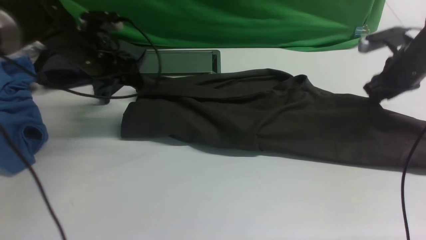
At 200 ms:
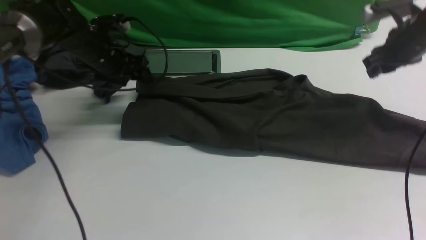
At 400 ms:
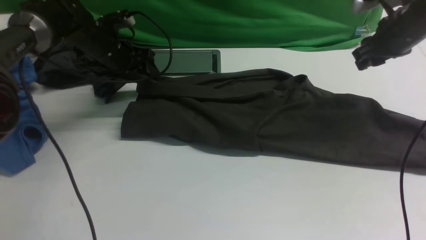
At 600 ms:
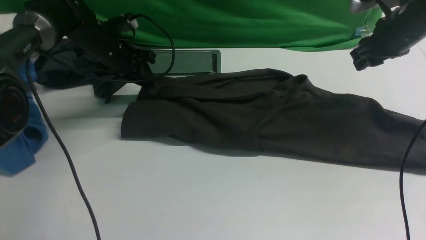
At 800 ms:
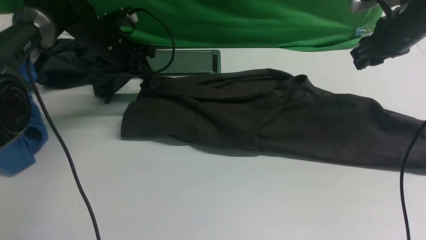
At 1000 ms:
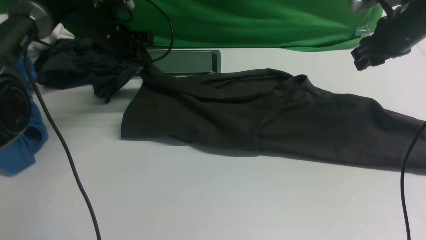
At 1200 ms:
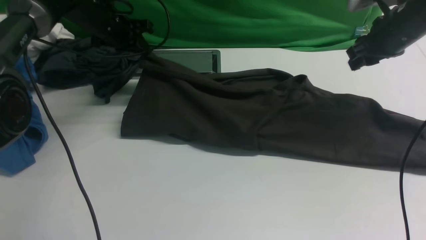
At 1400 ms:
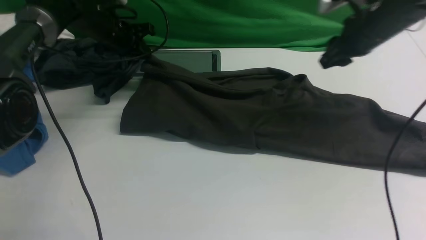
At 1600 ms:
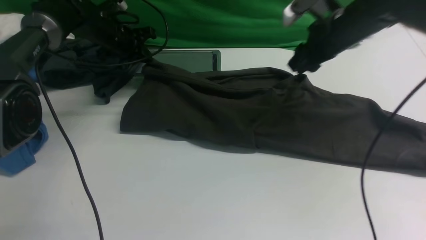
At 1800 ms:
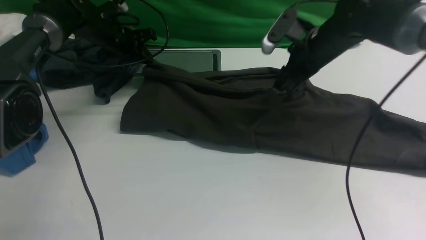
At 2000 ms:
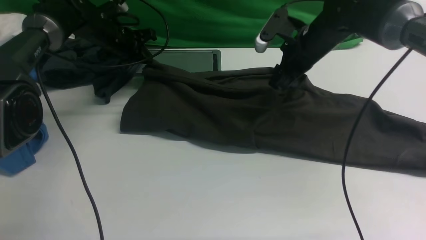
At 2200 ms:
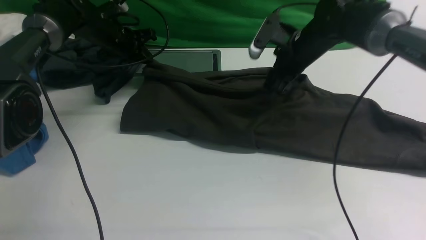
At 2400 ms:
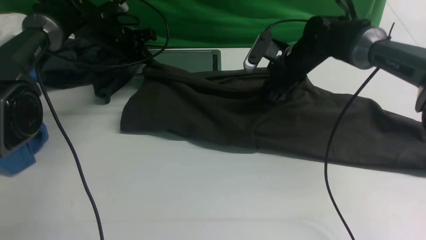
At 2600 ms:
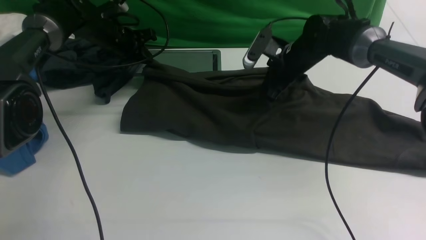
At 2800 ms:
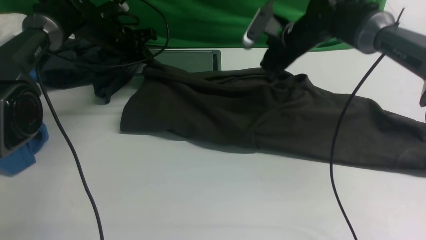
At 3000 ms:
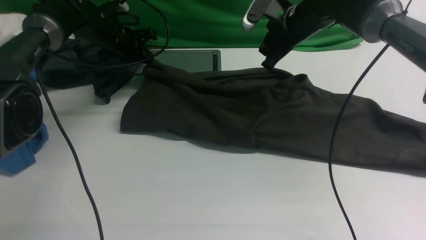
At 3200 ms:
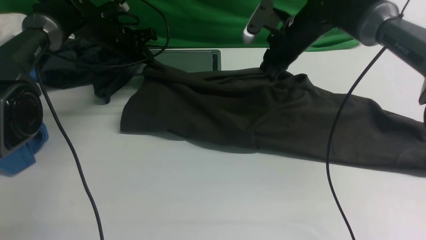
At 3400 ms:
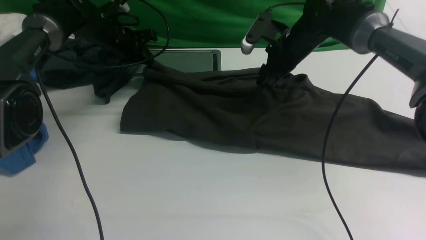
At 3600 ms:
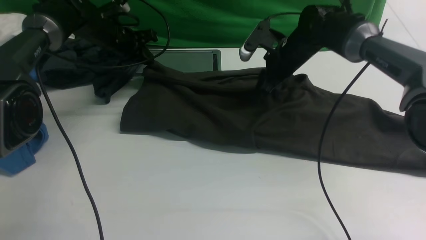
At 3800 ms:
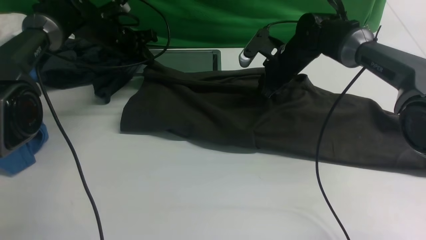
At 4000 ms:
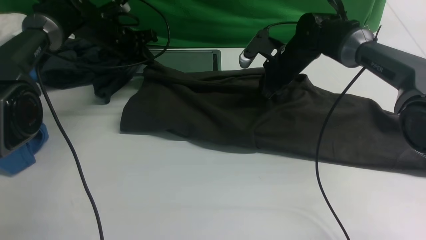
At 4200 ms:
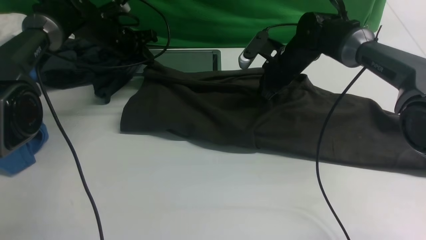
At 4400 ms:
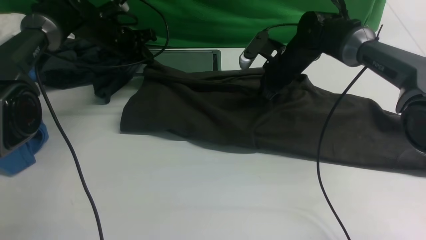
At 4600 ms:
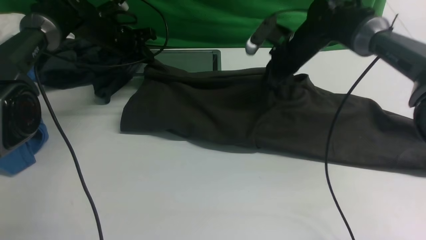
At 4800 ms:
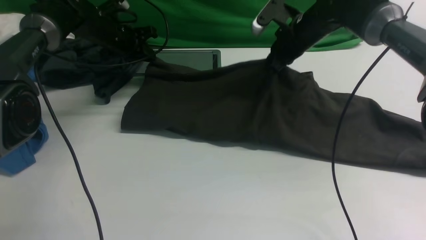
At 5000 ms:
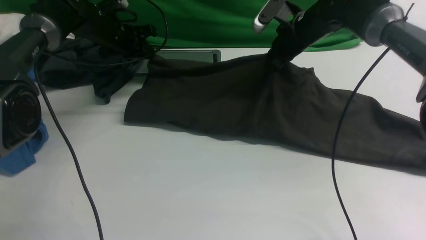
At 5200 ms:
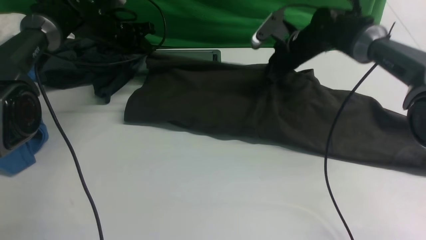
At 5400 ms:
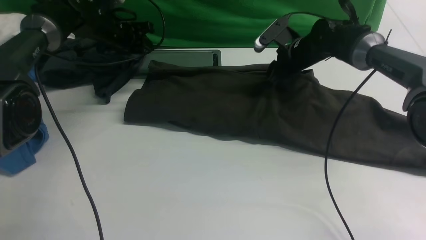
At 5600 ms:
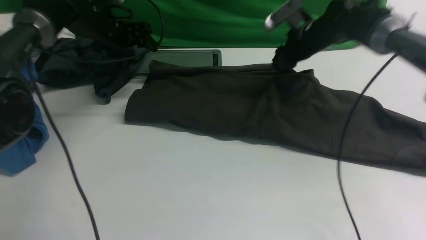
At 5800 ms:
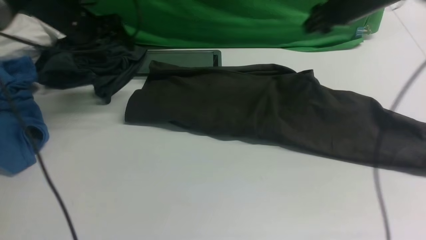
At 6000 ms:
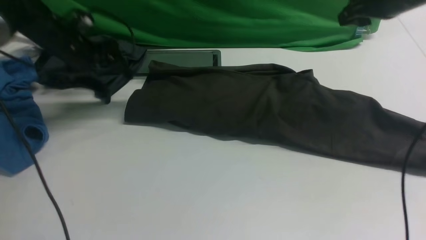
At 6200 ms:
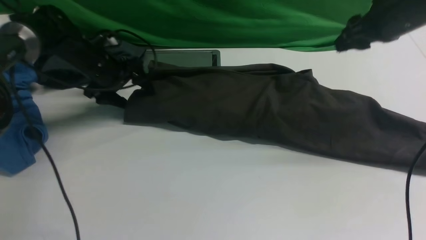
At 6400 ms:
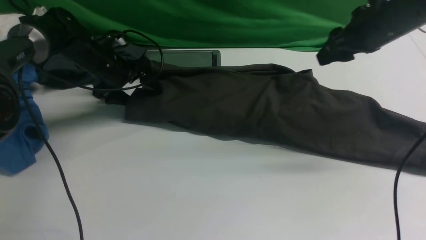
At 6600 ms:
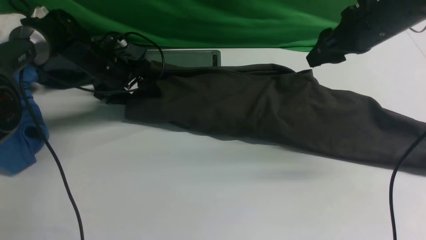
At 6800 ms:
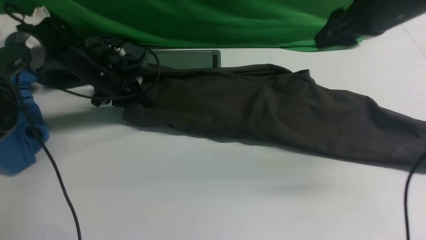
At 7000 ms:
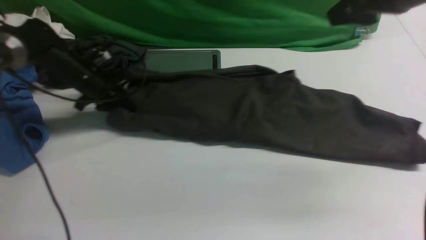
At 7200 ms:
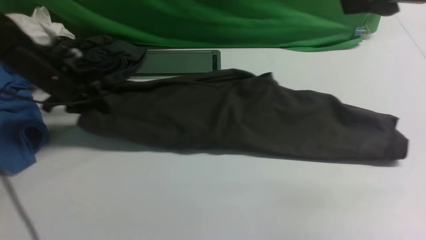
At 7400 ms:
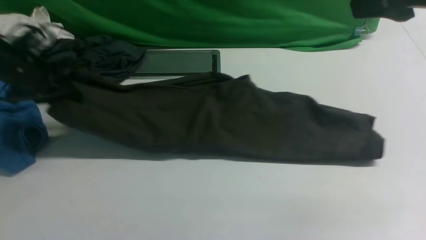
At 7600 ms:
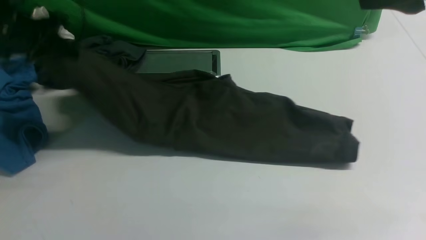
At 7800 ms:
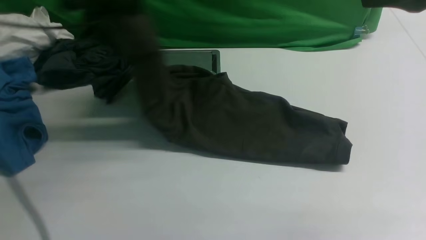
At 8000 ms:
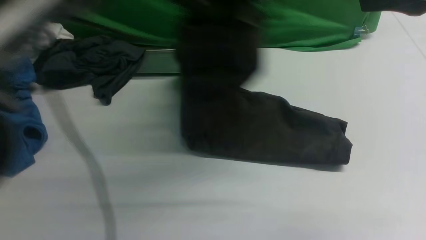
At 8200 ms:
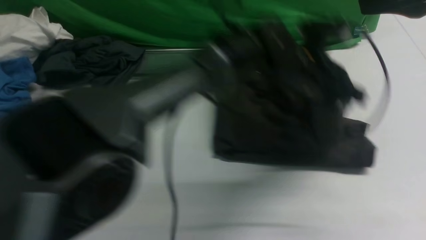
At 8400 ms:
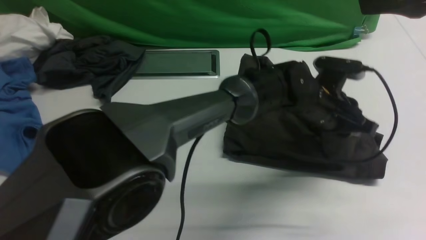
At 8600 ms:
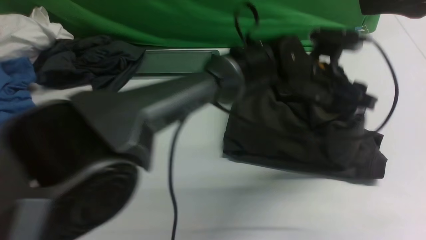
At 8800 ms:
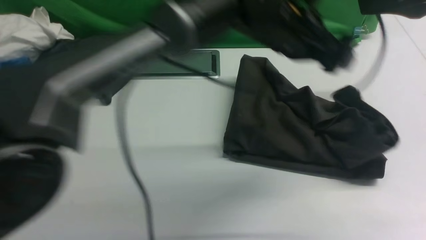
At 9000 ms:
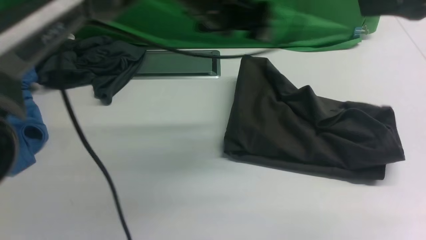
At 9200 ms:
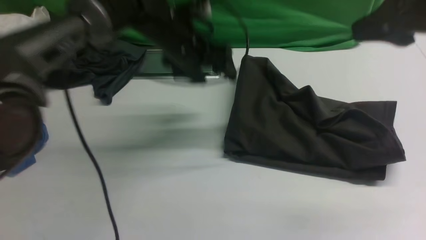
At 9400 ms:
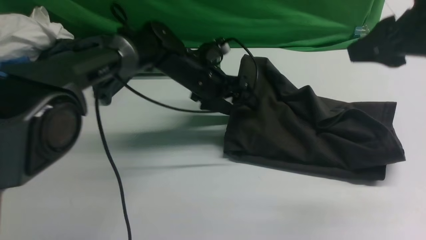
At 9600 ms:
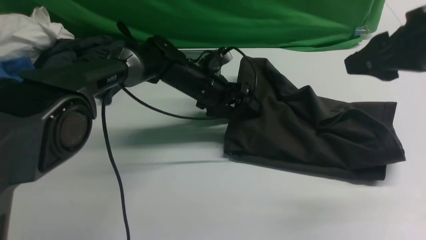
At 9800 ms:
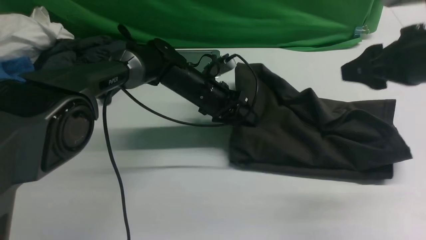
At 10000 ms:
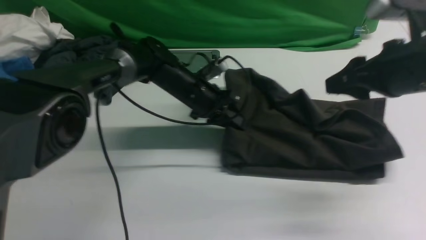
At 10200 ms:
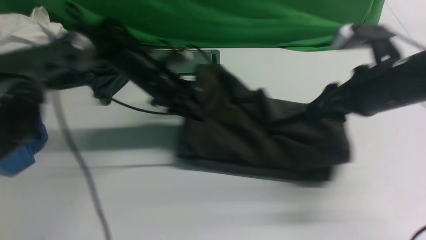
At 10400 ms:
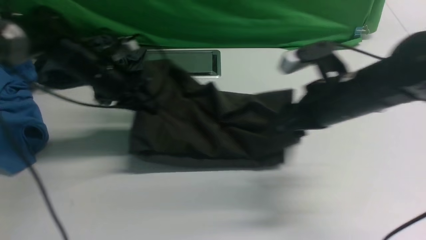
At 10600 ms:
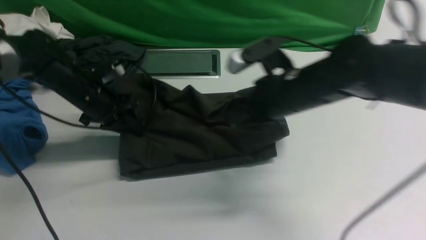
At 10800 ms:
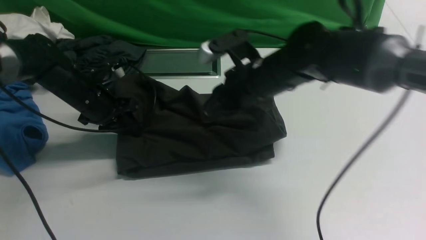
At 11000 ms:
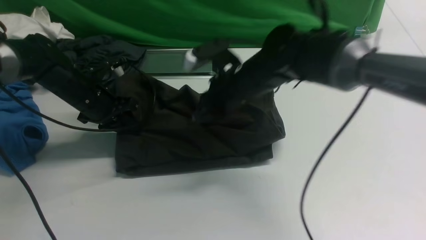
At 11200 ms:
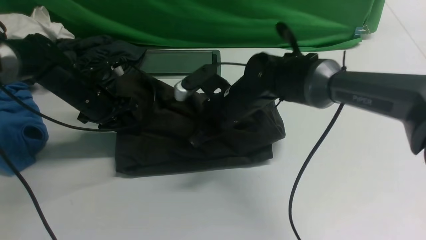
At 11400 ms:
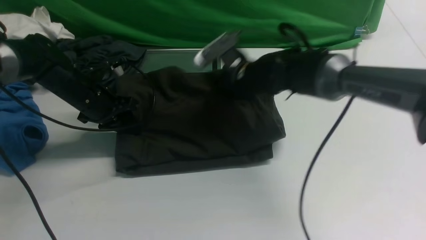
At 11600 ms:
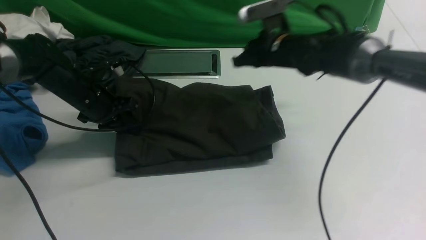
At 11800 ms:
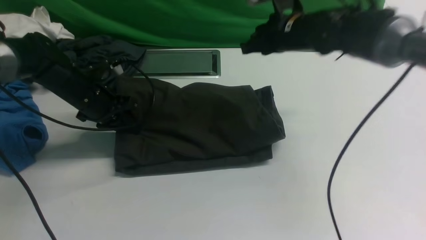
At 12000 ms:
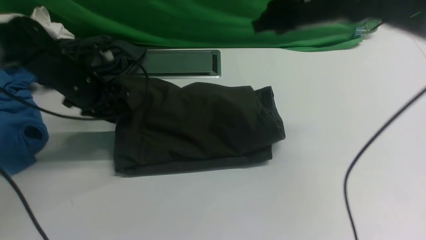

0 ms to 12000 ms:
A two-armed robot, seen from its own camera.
Step, 0 ms to 5600 ms: use both arms to drag the lower edge of the fabric forward and fold it over the upper edge.
Step, 5800 ms to 7200 ms: Hold the left edge of the fabric with your left arm.
Step, 7400 ms to 8600 ms: Drag the left edge of the fabric to the left with your left arm and fold it to the right edge.
0 ms to 1600 ms: The right gripper shifts some 15 cm to the left, while the left gripper goes approximately 10 cm forward, and closes its fingers.
1600 ms to 3000 ms: The right gripper moves to the left and forward, roughly 5 cm, and closes.
3000 ms to 4400 ms: The right gripper goes approximately 5 cm downward, and opens, then closes again.
4400 ms to 6000 ms: The left gripper shifts by some 5 cm, and opens up, while the right gripper moves upward, to the right and backward, approximately 20 cm, and opens up.
6000 ms to 7600 ms: The left gripper moves upward and backward, roughly 15 cm, and closes; the right gripper travels backward and upward by roughly 20 cm.
7600 ms to 9000 ms: The left gripper shifts approximately 25 cm to the right, and opens its fingers.
9000 ms to 10400 ms: The left gripper heads to the left and downward, covering roughly 20 cm, and closes up. Meanwhile the right gripper is displaced downward and to the left by about 20 cm.
10400 ms to 12000 ms: The left gripper moves approximately 5 cm, and opens. Meanwhile the right gripper goes approximately 15 cm forward and upward, and closes its fingers.

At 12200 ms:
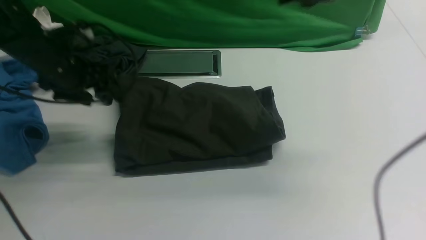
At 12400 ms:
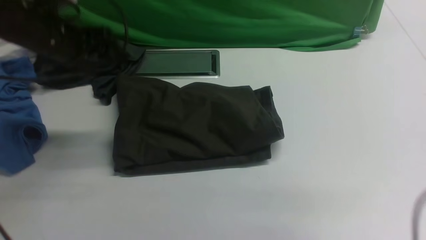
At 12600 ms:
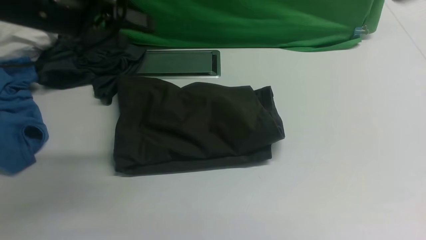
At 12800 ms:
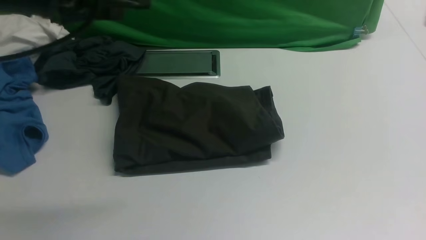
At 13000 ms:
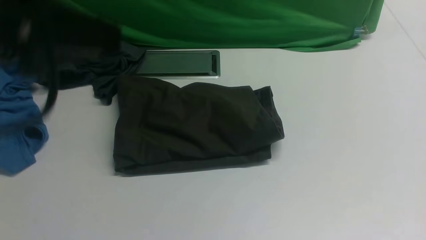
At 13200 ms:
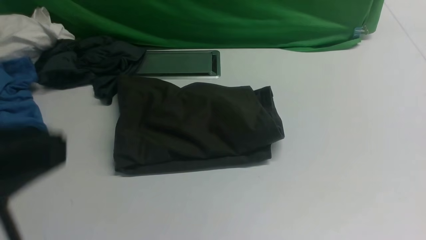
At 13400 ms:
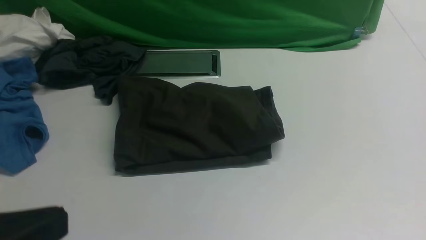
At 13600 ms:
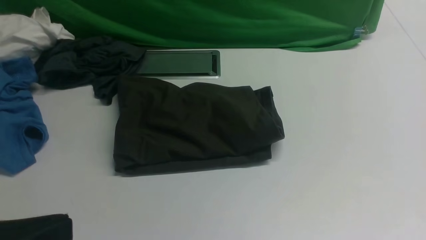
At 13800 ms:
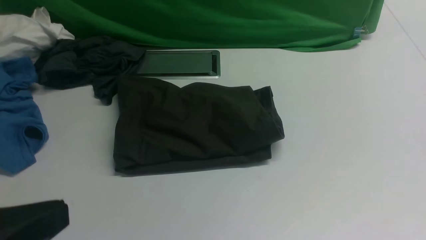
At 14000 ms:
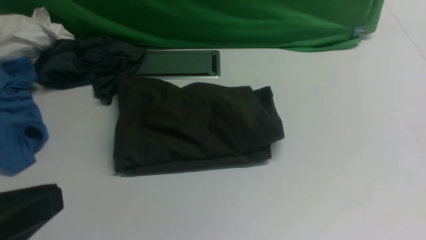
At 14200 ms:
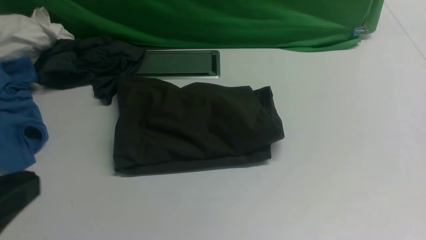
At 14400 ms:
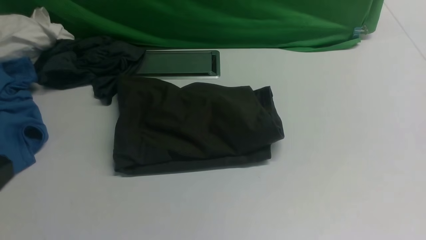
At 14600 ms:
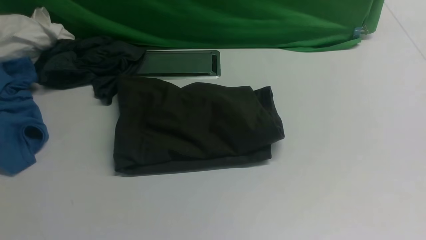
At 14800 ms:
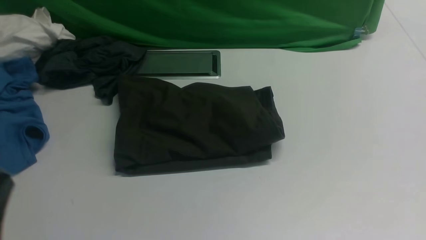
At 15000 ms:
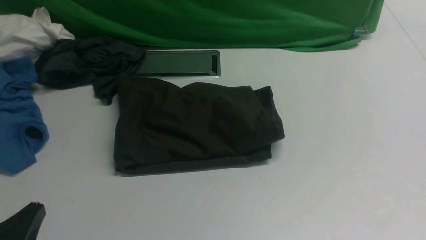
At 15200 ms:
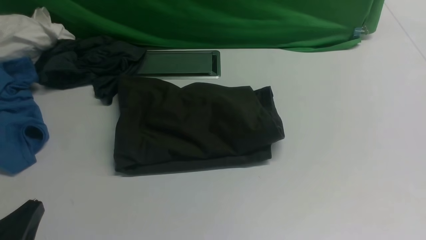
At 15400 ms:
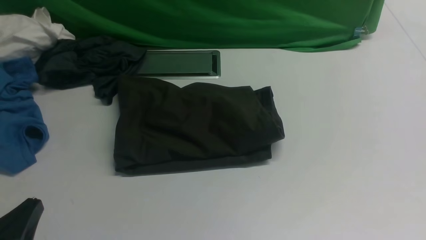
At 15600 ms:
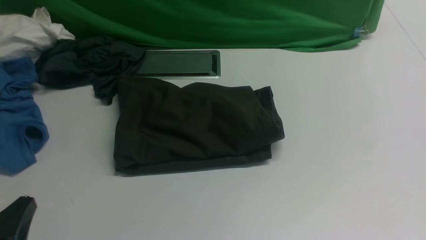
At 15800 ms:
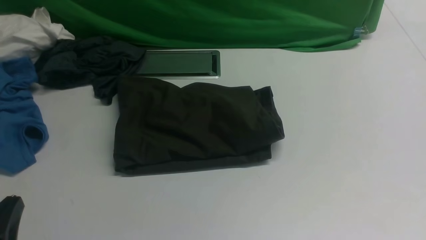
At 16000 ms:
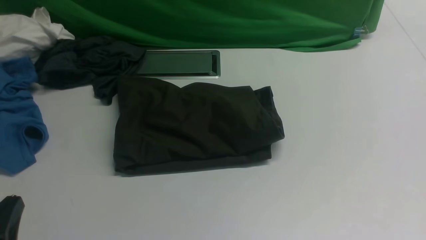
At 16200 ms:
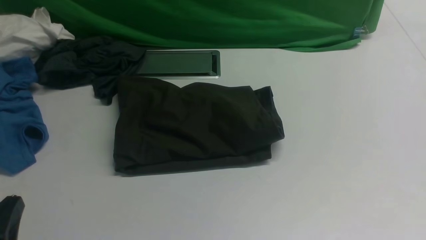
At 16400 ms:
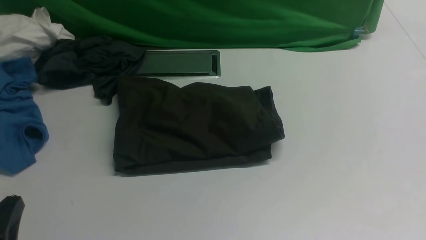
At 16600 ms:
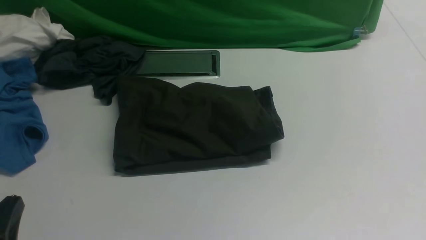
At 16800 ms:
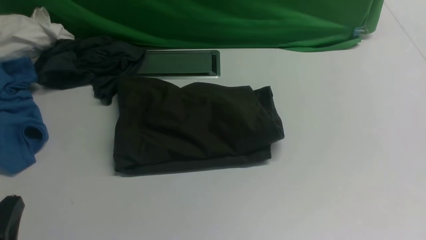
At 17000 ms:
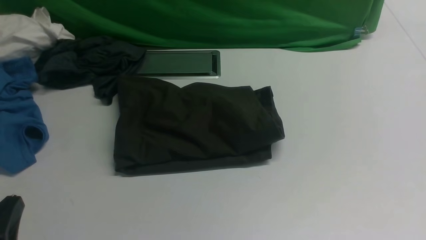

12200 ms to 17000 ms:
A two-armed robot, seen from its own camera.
12200 ms to 13800 ms: The right gripper heads backward and to the right, covering approximately 35 cm, while the left gripper shifts some 35 cm backward, and closes up.
13800 ms to 15400 ms: The left gripper goes approximately 15 cm downward.
